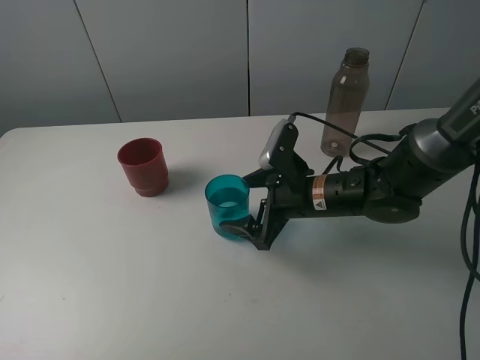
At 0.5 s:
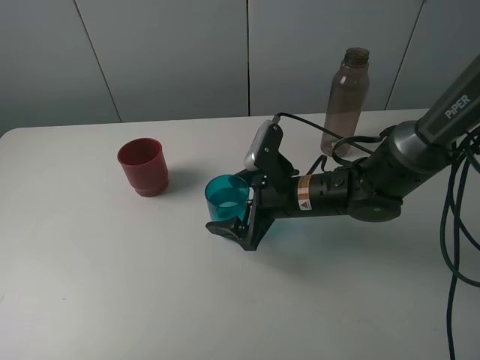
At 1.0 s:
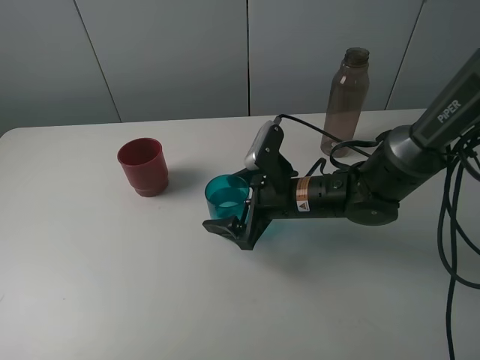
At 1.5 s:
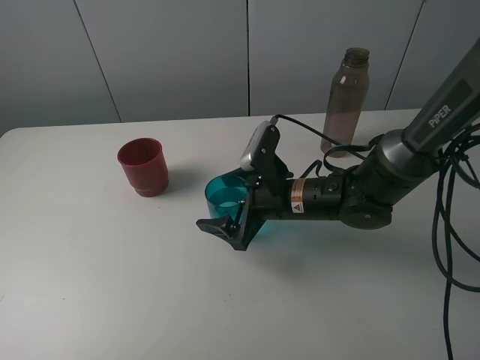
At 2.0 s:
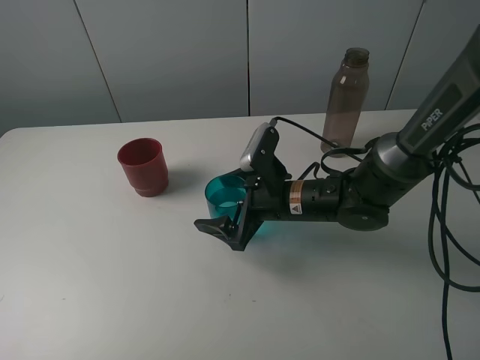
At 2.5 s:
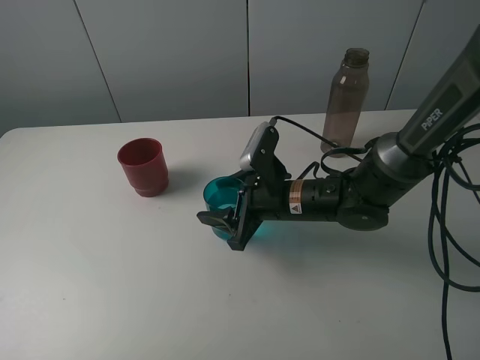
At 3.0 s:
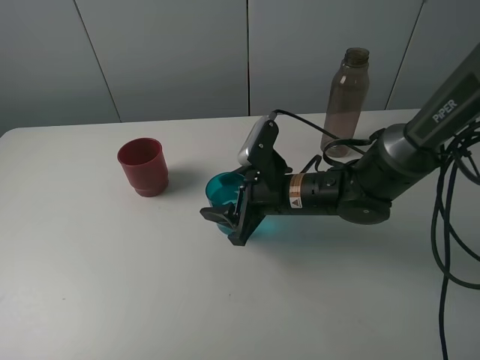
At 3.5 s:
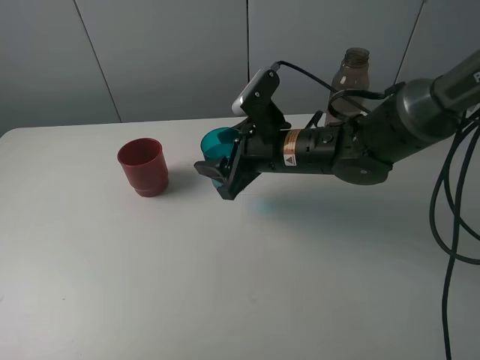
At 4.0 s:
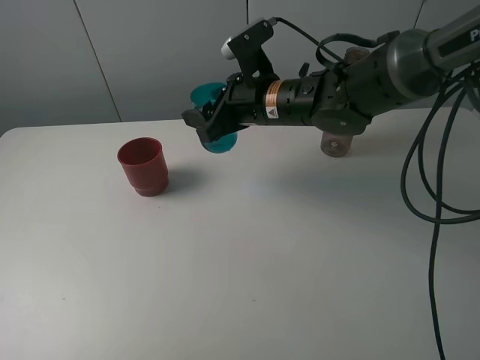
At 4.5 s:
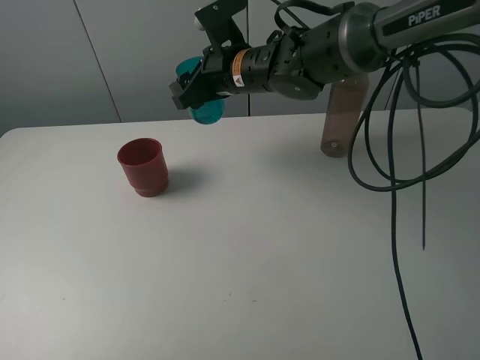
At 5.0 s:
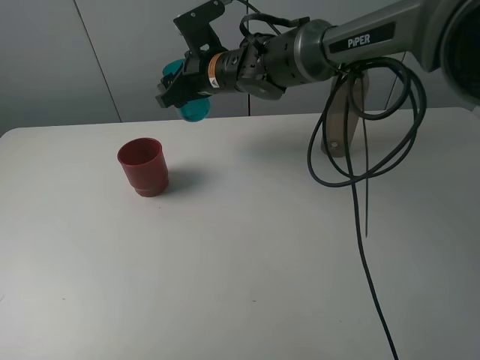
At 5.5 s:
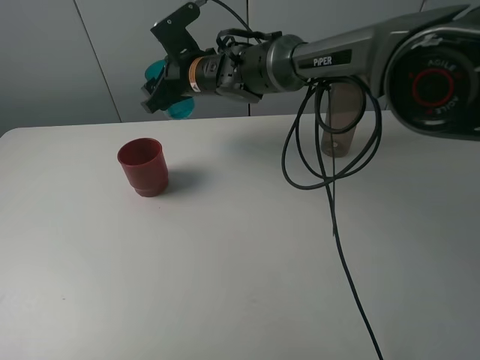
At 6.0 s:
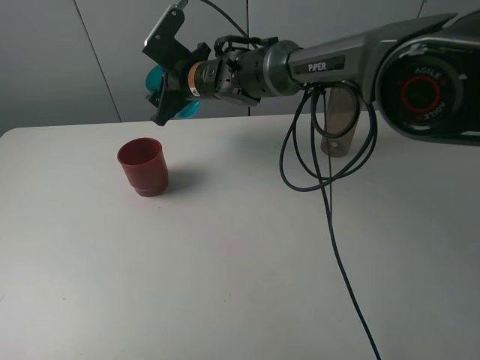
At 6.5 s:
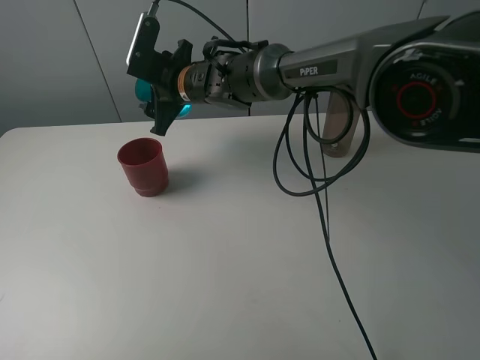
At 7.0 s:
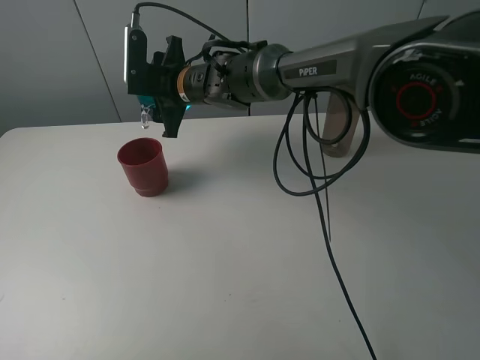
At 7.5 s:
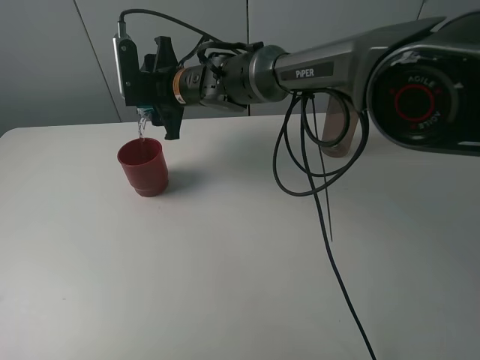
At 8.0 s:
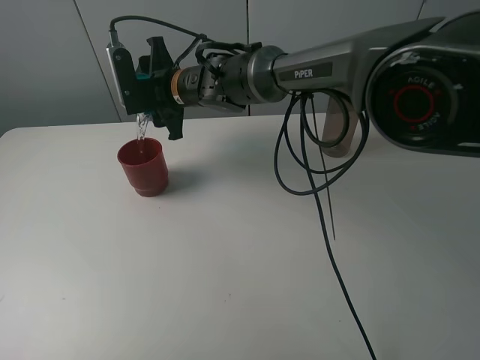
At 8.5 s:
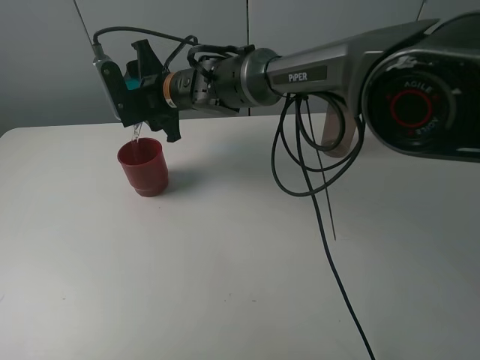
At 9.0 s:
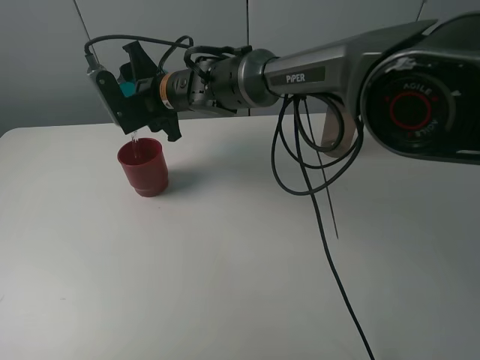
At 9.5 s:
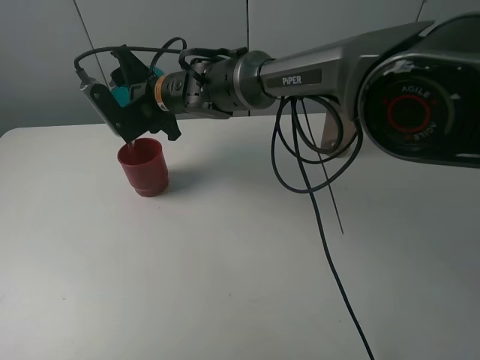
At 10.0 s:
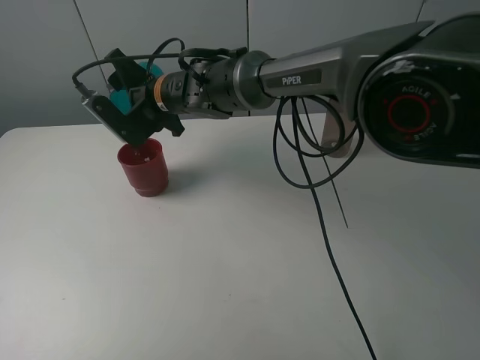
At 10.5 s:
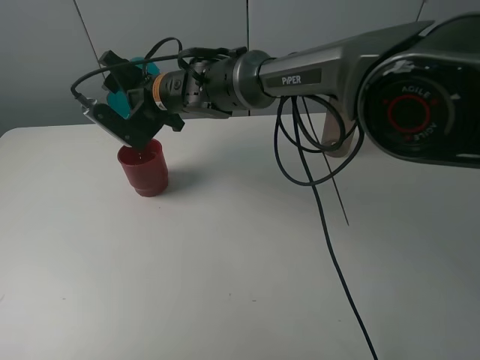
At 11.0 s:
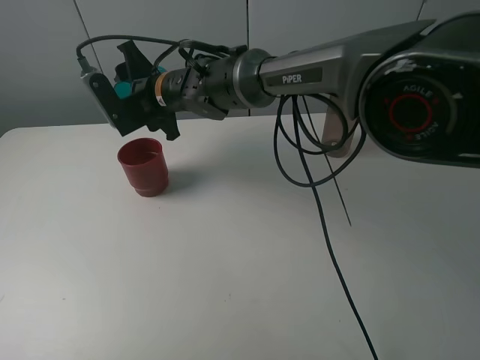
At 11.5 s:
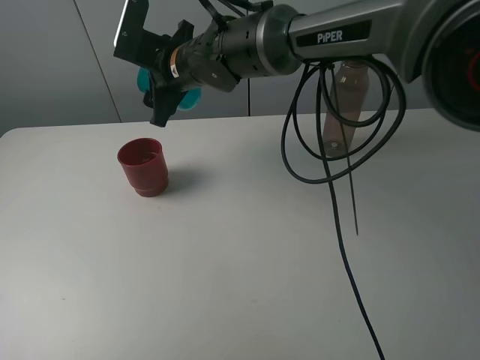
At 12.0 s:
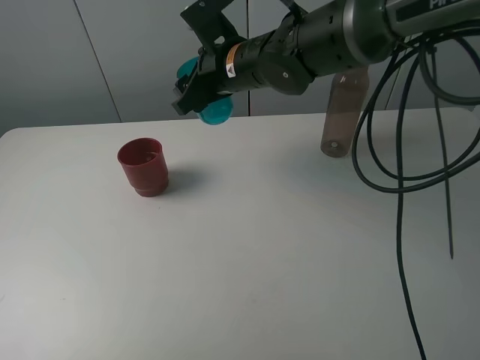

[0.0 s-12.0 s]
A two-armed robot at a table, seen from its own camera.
Task of the whole recording: pick up the bottle and pour water into the cup, then pick up the cup containing water and pour it into another cup.
Step, 0.0 to 2.0 s: Grasp the blue cup with the right gripper.
Step, 2.5 to 10.5 s: Pour water from blue cup to red cup with the right gripper.
0.0 to 2.0 s: The grippers stay close to where they were, moving slightly.
2.0 to 4.0 s: The right gripper moves upward and forward, roughly 15 cm, and closes.
4.0 to 6.0 s: The right gripper goes approximately 15 cm to the left and forward.
10.0 to 12.0 s: The right gripper travels to the right by approximately 10 cm.

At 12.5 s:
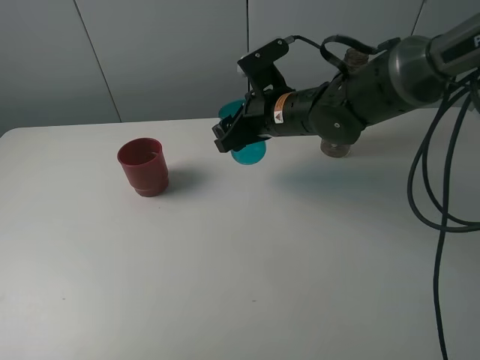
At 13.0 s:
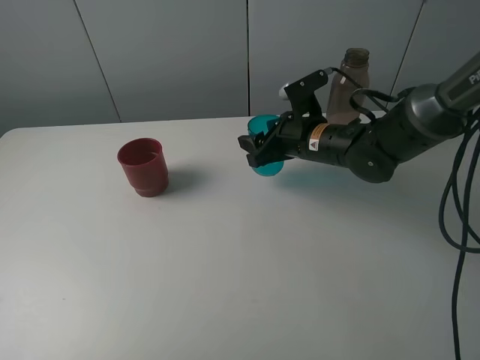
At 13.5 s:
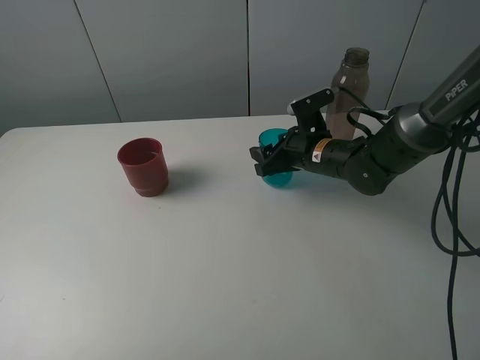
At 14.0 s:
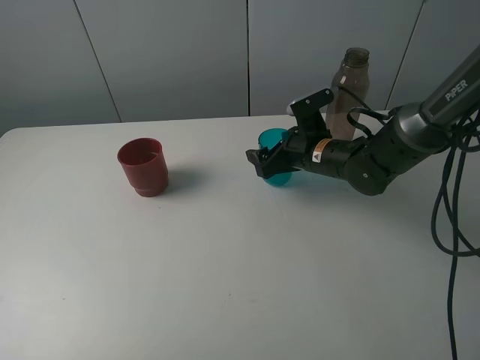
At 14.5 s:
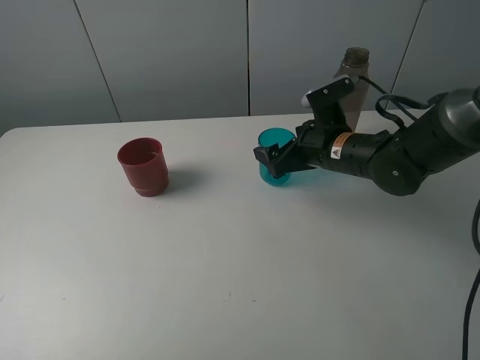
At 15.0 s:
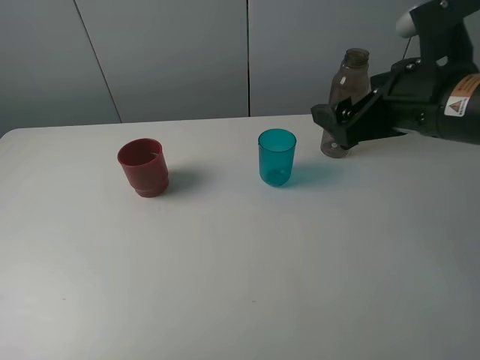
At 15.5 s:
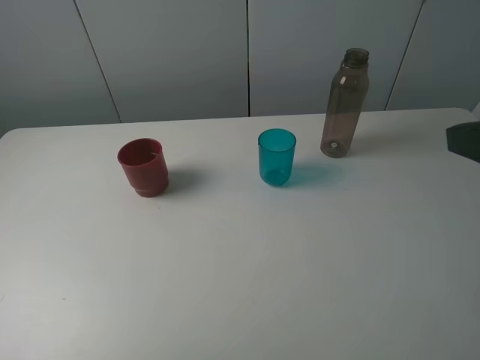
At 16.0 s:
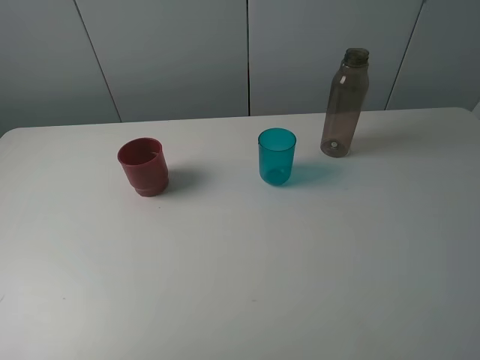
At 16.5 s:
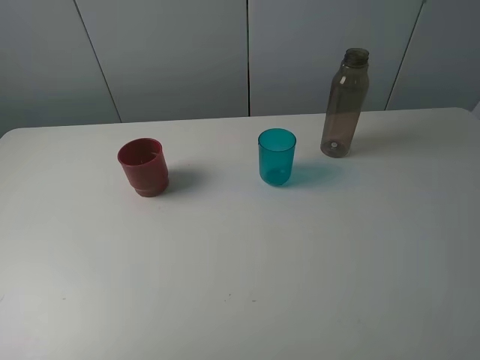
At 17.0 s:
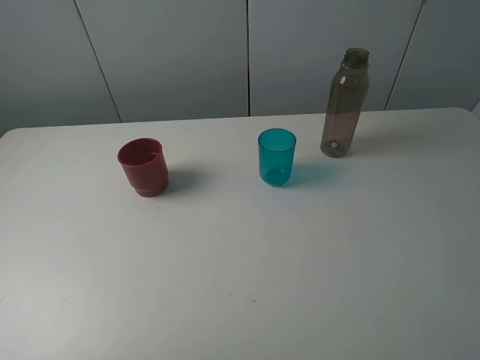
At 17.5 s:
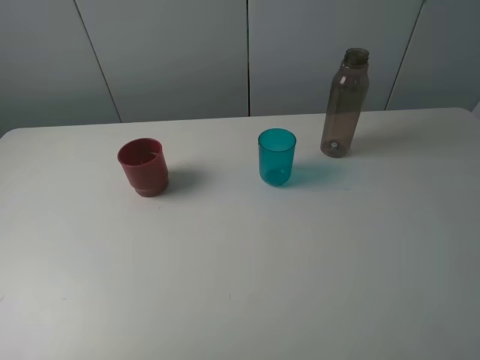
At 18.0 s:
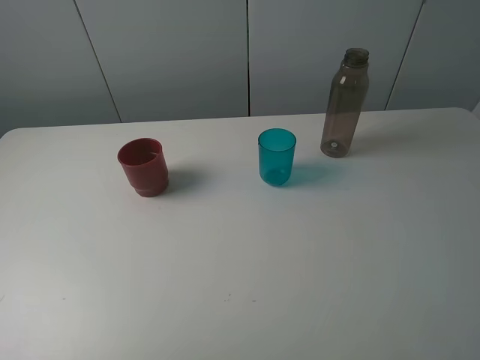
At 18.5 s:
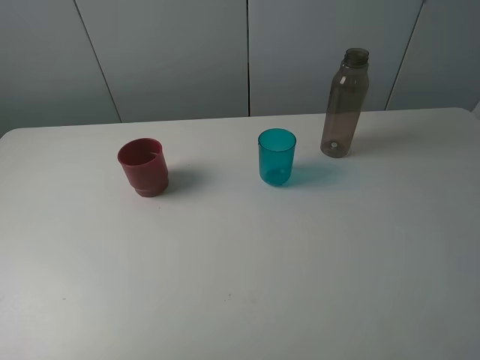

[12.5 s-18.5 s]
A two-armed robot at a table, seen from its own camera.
Task of the whole recording: pick up the bottle and pour water into the cup, then pick up the cup containing water and pour it into another cup.
12.5 to 14.5 s: The right gripper heads to the right, covering approximately 10 cm, and opens up.
14.5 to 16.5 s: The right gripper shifts roughly 40 cm backward, upward and to the right.
